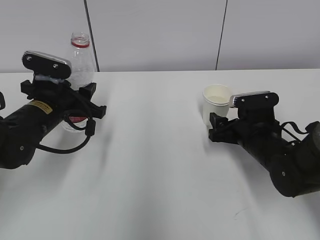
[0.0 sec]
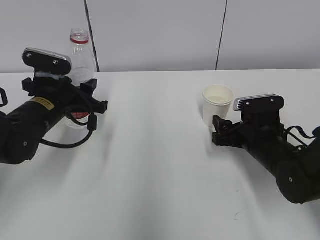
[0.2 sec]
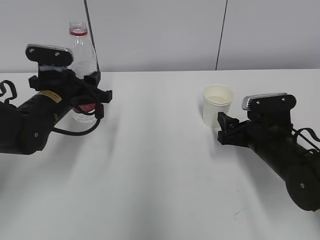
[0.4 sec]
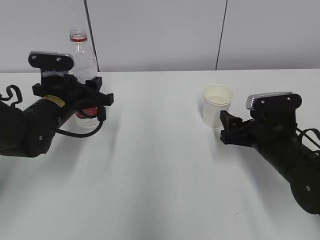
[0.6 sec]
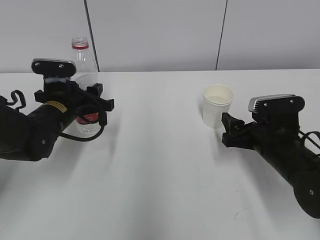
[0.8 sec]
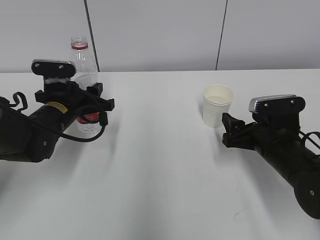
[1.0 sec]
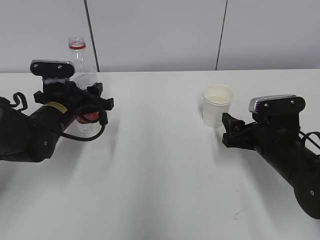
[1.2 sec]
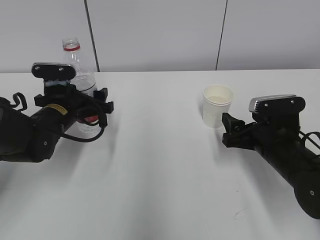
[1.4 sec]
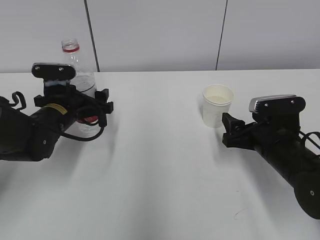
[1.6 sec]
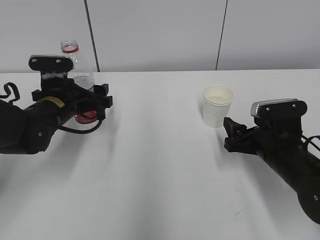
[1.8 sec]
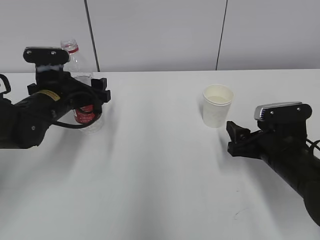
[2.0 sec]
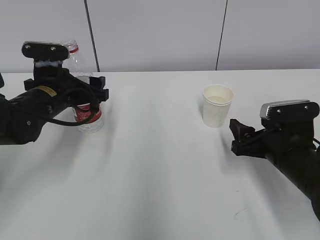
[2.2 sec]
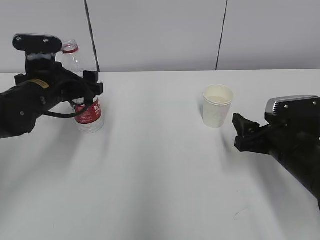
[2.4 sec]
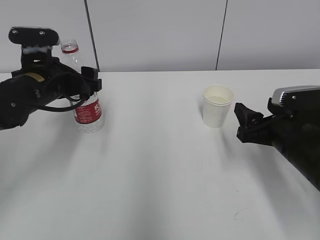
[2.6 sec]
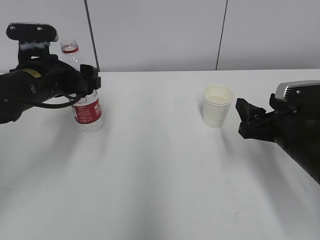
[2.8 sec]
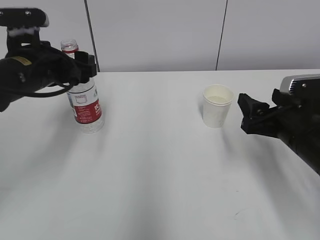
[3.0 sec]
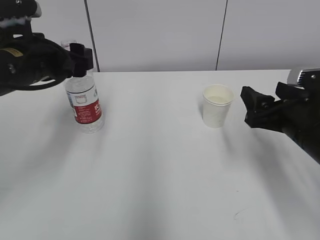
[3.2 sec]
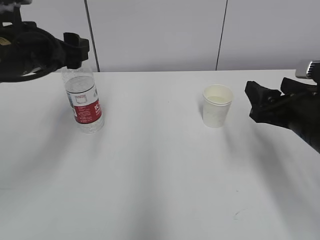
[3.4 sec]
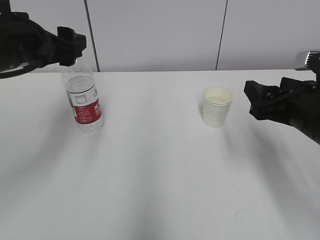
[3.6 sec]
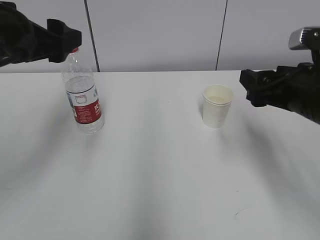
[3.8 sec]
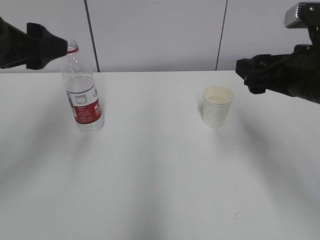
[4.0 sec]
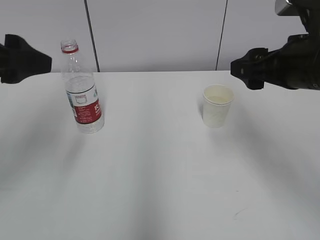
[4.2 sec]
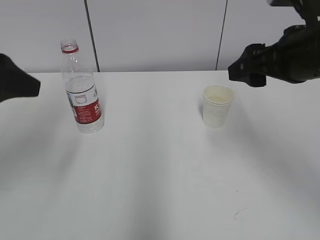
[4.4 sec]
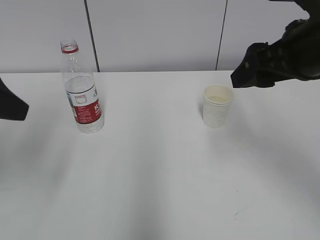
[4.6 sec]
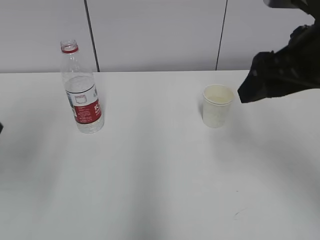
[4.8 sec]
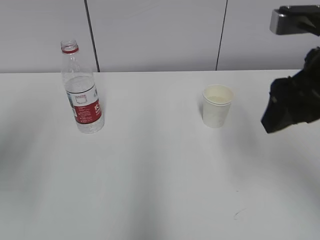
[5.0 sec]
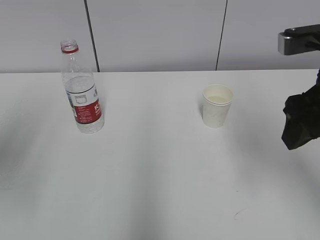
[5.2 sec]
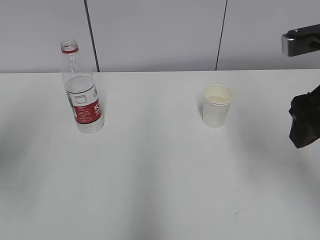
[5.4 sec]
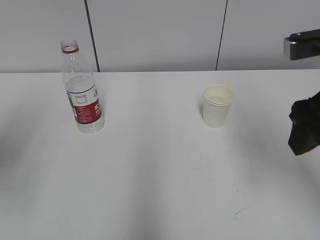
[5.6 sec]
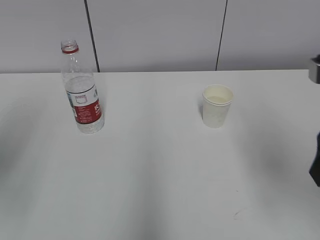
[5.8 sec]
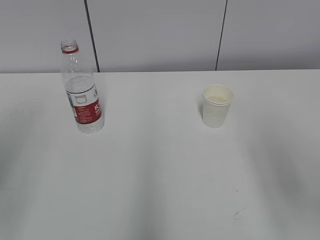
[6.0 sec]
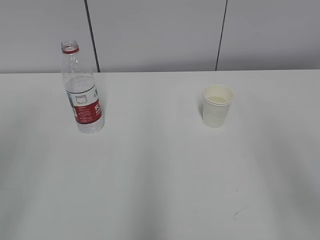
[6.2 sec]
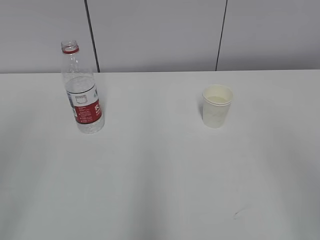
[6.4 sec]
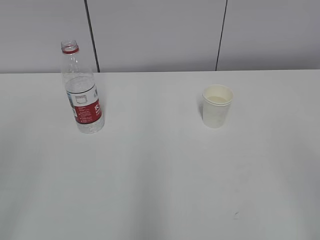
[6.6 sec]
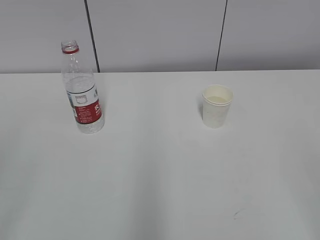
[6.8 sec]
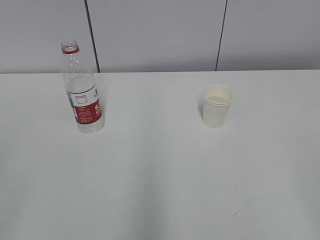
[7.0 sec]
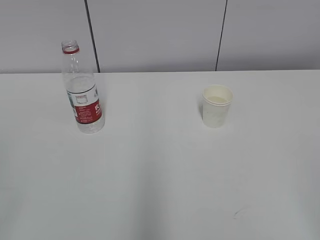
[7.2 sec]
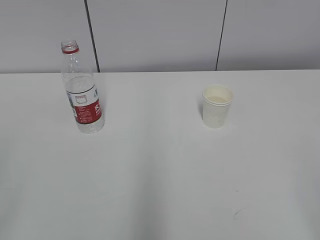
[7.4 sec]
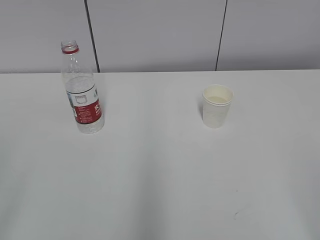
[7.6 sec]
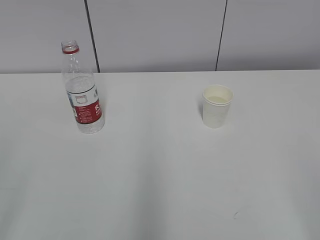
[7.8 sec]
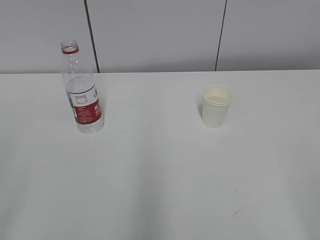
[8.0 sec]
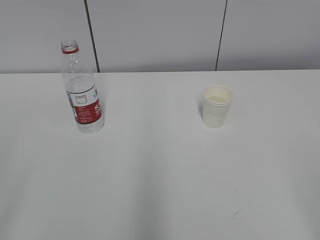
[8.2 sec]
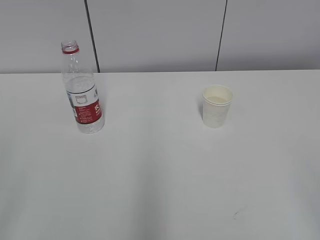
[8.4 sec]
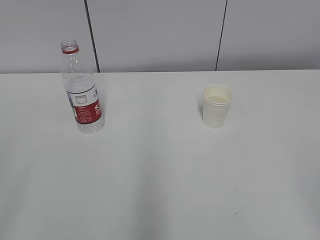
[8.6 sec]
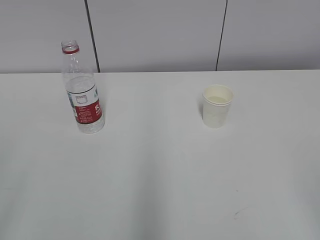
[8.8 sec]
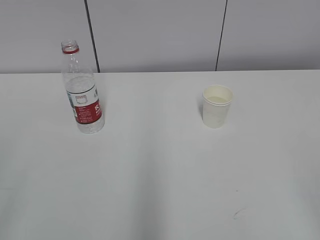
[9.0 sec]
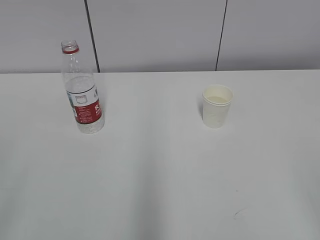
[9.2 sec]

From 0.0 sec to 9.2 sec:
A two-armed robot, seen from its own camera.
From 0.0 sec to 1.6 sec: The left gripper opens.
From 1.6 sec to 3.0 sec: The right gripper shifts roughly 5 cm upward, while the left gripper is displaced upward by approximately 10 cm.
From 3.0 sec to 4.6 sec: The left gripper travels backward, upward and to the left by roughly 15 cm. Meanwhile the right gripper travels upward by about 15 cm.
From 4.6 sec to 6.2 sec: The grippers both shift backward by about 15 cm.
From 6.2 sec to 7.6 sec: The right gripper shifts some 10 cm backward and downward.
